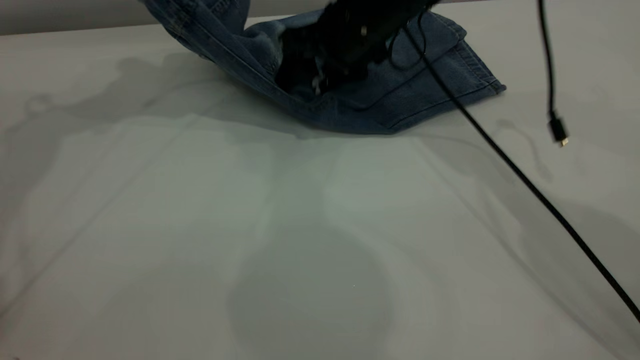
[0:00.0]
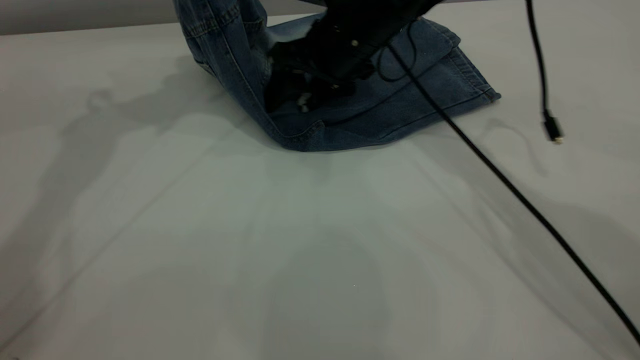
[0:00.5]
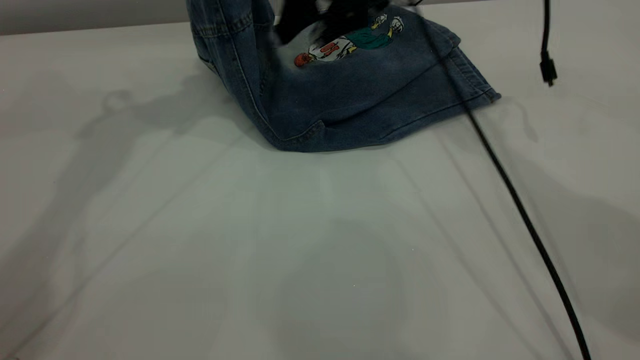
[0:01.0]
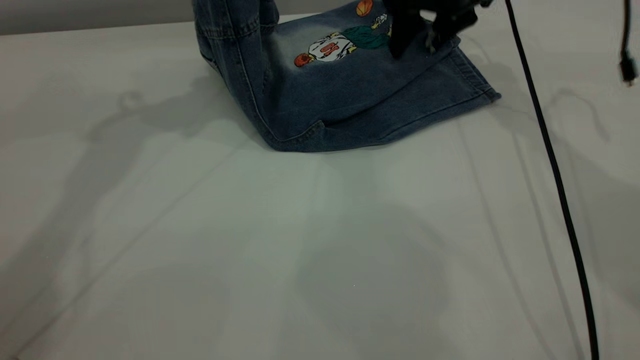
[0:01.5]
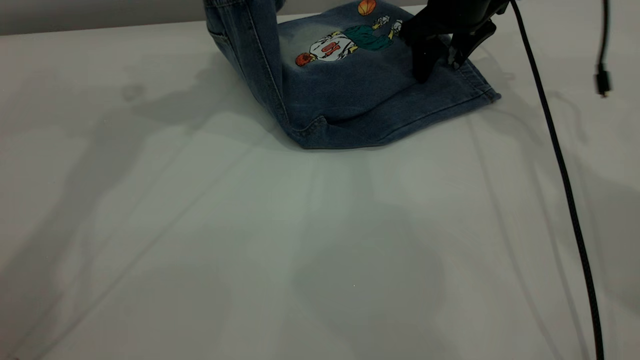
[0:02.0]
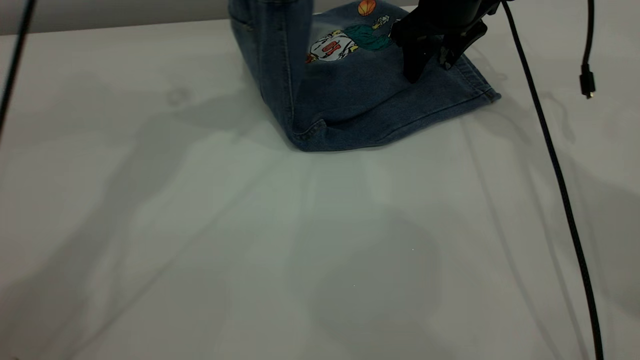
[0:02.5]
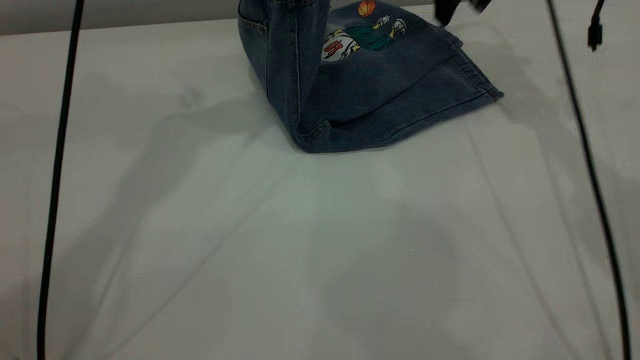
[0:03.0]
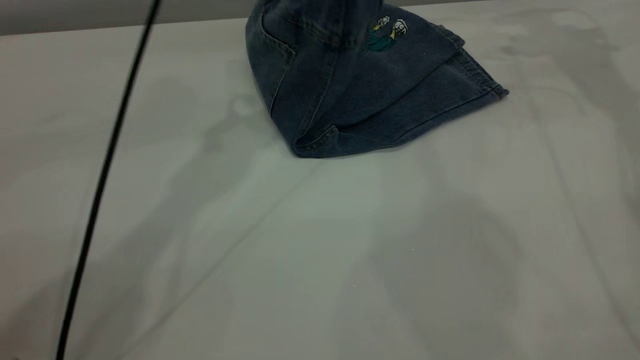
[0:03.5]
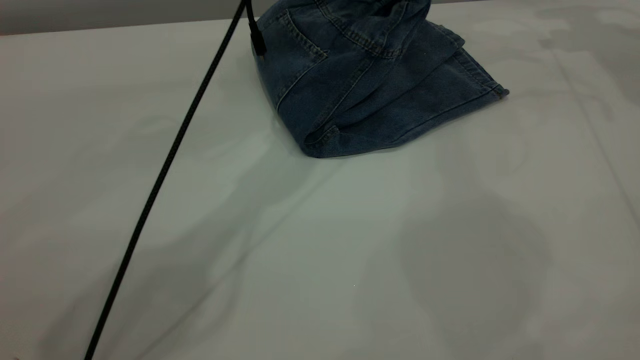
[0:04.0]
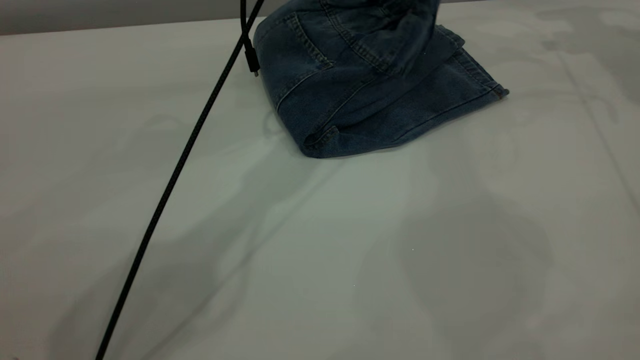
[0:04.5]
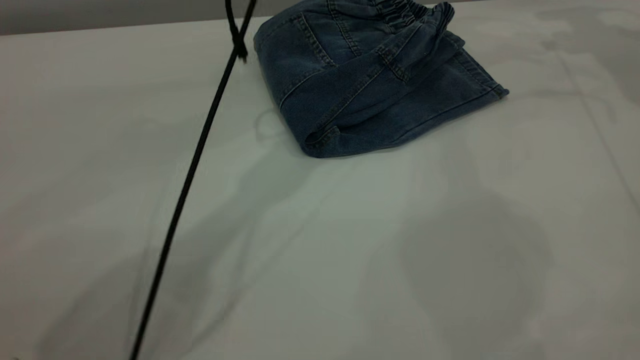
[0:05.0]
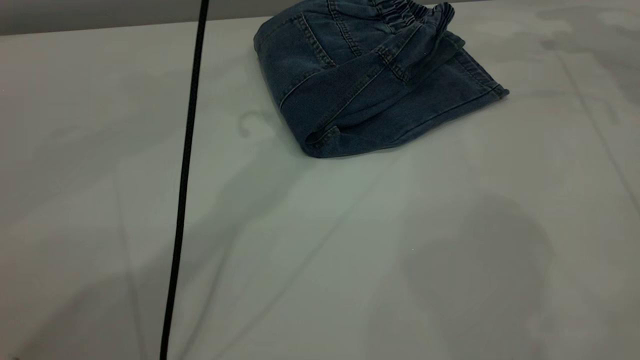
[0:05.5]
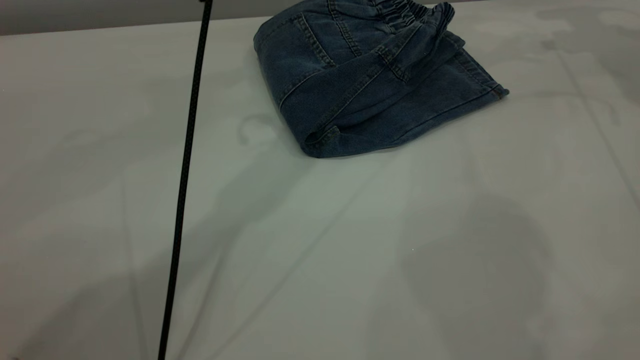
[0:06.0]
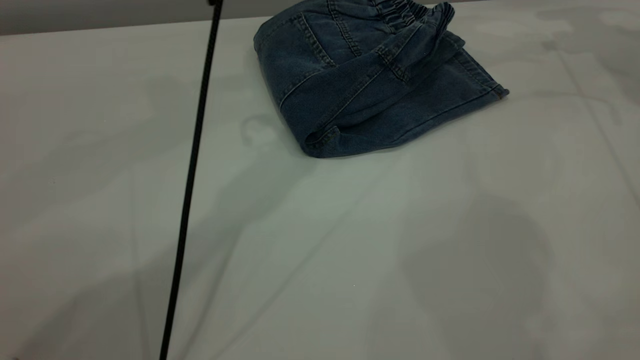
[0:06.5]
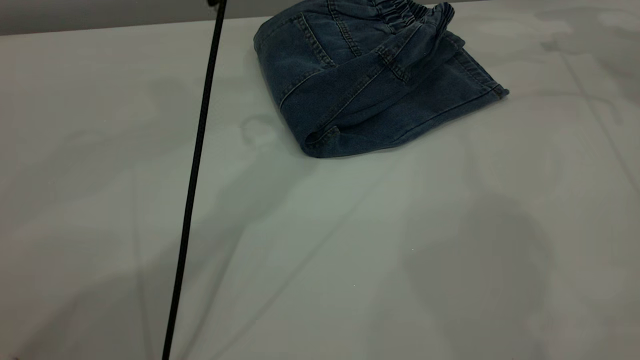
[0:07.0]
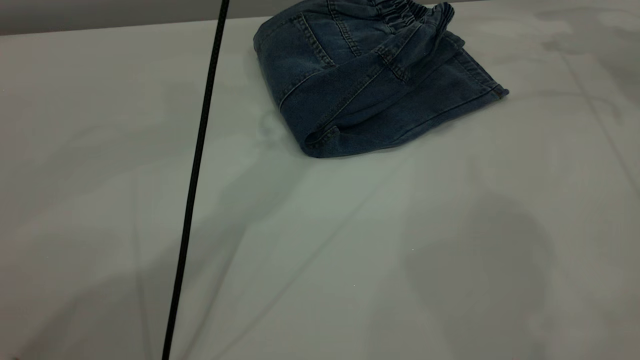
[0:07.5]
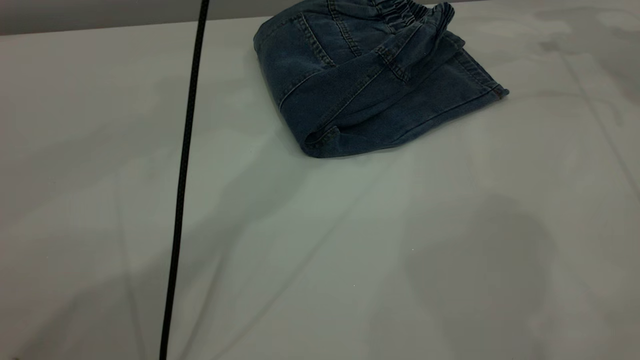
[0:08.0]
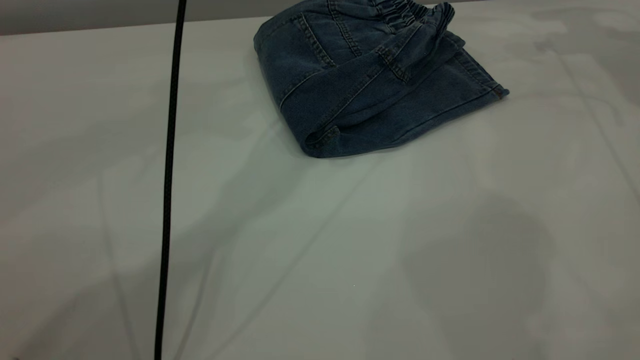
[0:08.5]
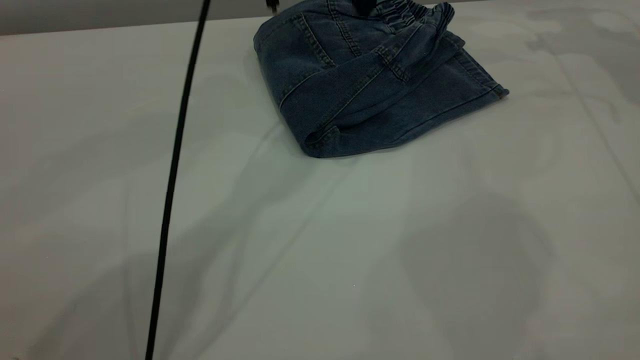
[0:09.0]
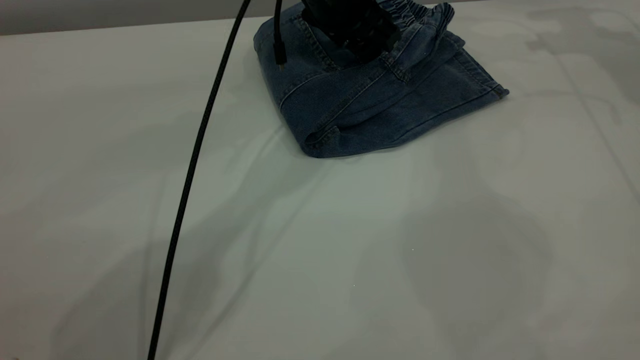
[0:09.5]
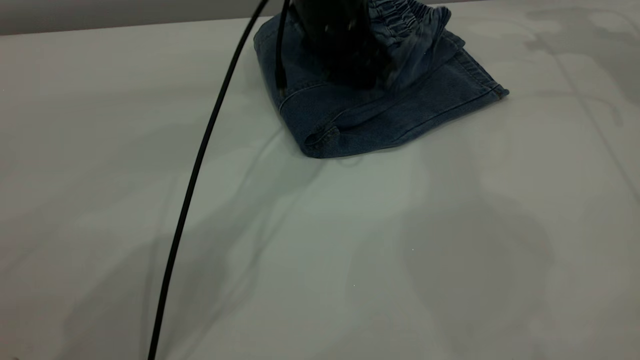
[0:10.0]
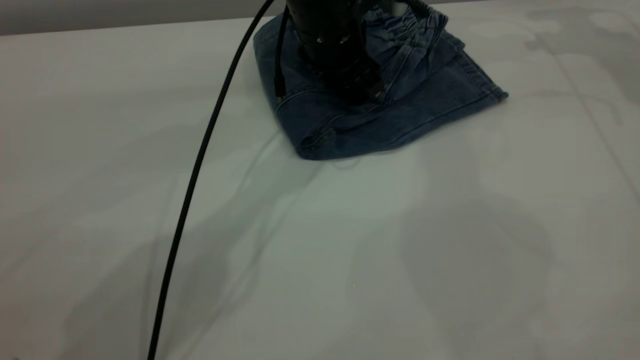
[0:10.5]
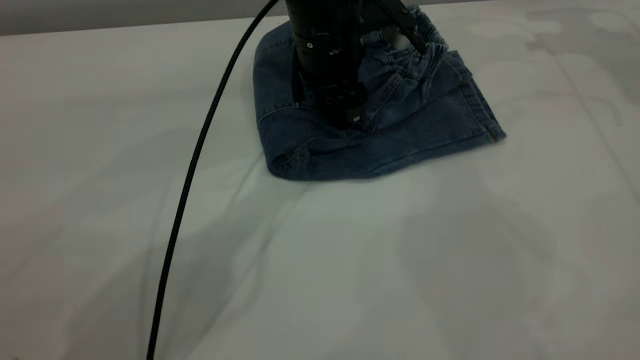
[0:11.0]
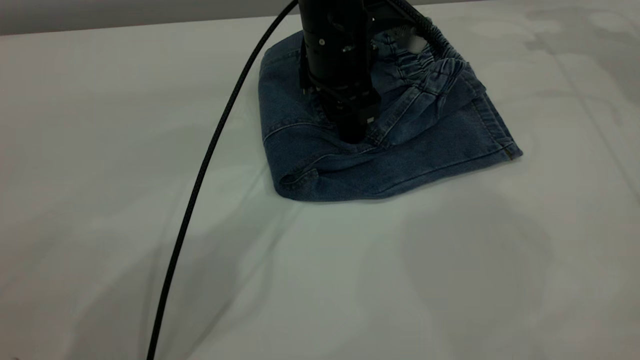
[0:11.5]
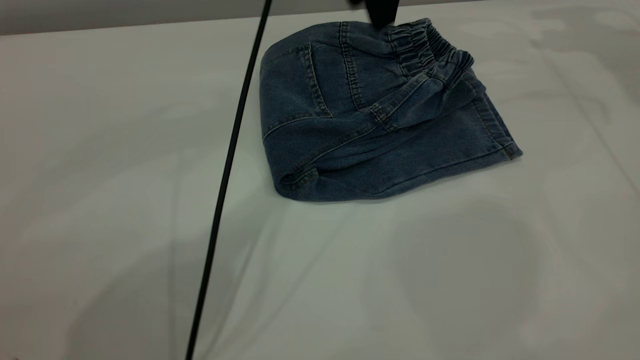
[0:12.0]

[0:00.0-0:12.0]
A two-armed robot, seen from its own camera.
Step, 0:00.0 to 0:05.5: Fold the pants from left to right.
0:00.0 to 0:02.0: The right gripper goes some 10 cm to the right and forward. Meanwhile the left gripper is displaced to the right by about 10 cm.
0:02.0 to 0:04.0: The left gripper heads to the right and downward, covering approximately 20 cm; the right gripper moves to the right and upward, approximately 20 cm.
0:04.0 to 0:06.0: The left gripper travels upward by approximately 10 cm, and opens.
0:06.0 to 0:08.0: The grippers make only small movements.
0:08.0 to 0:10.0: The left gripper travels downward by roughly 15 cm.
0:10.0 to 0:12.0: The left gripper travels upward by roughly 15 cm.

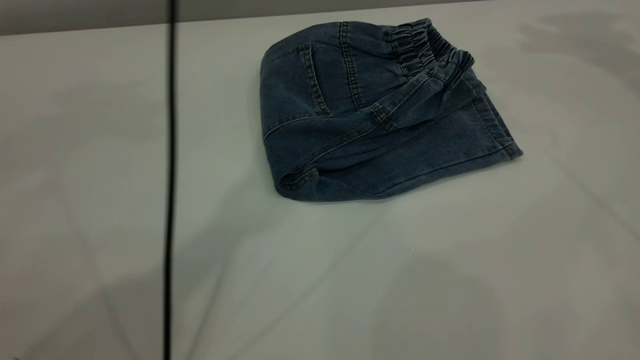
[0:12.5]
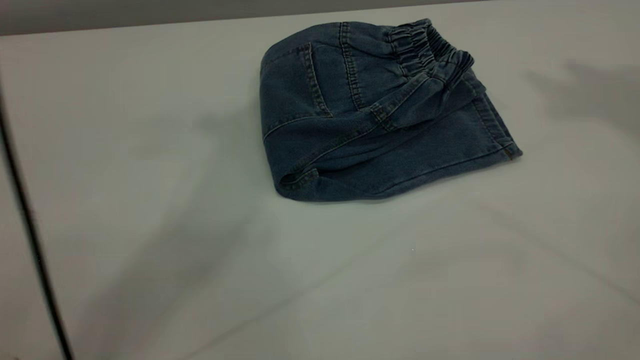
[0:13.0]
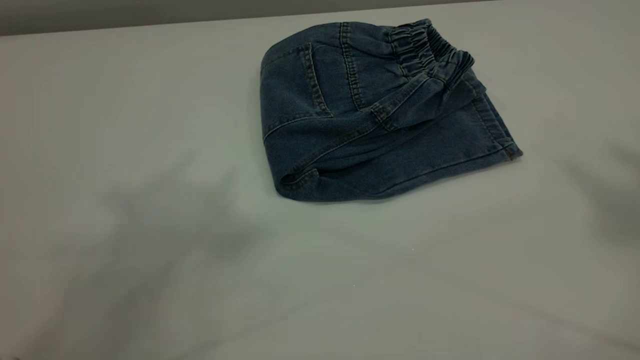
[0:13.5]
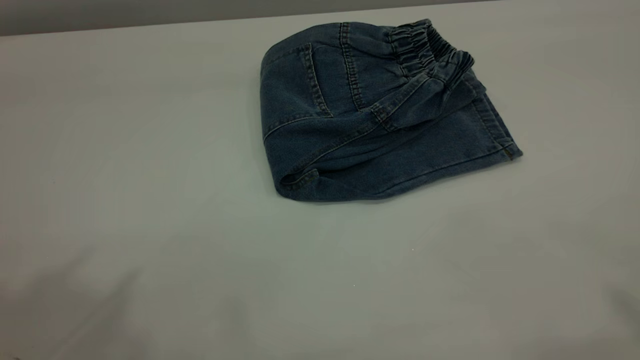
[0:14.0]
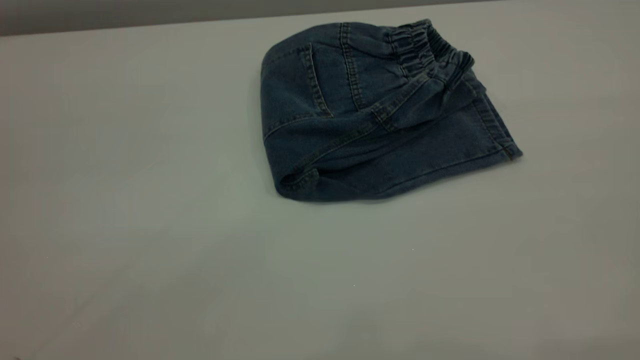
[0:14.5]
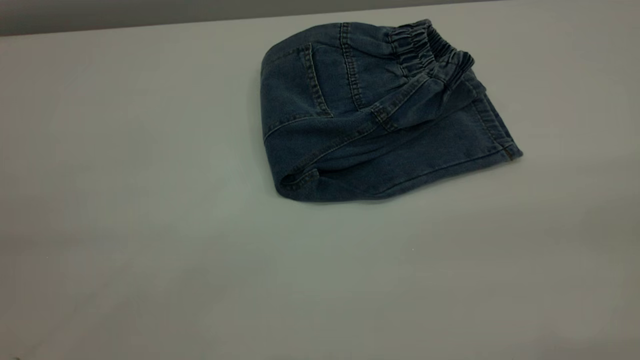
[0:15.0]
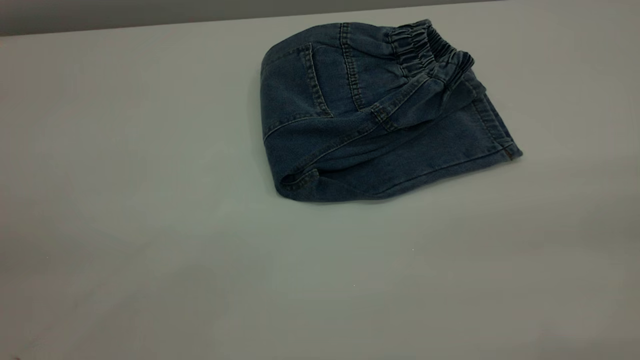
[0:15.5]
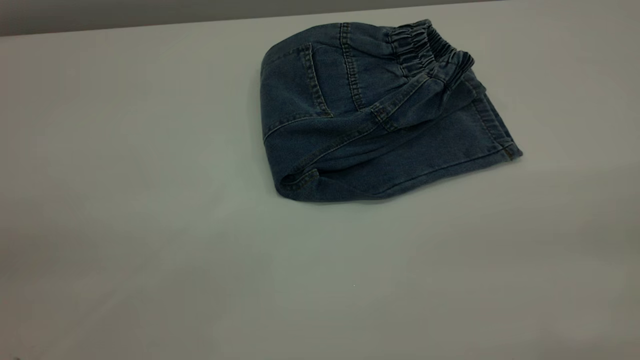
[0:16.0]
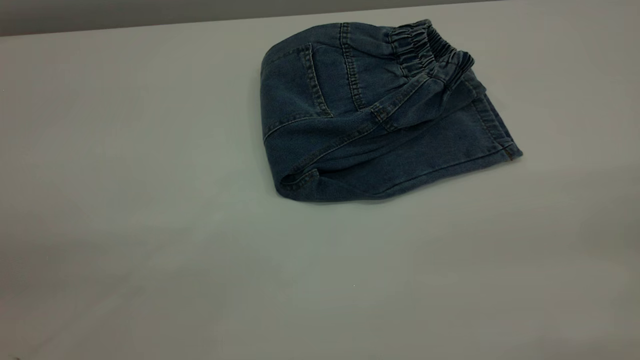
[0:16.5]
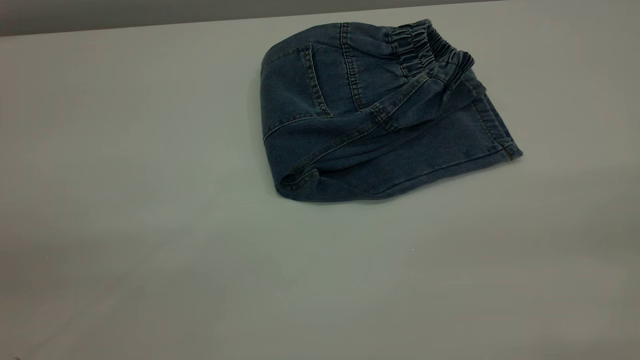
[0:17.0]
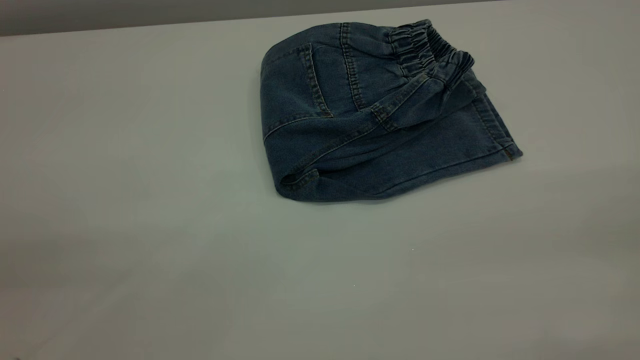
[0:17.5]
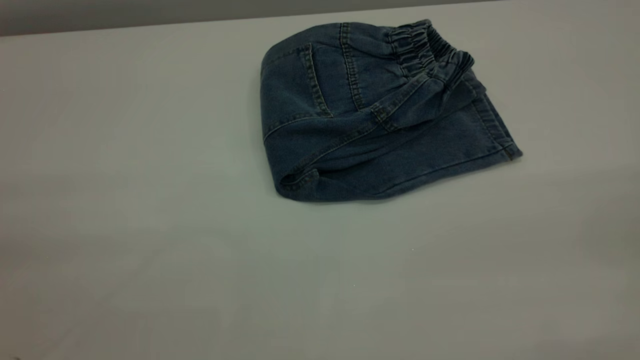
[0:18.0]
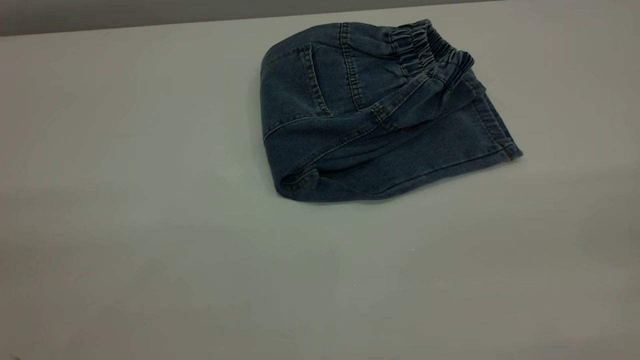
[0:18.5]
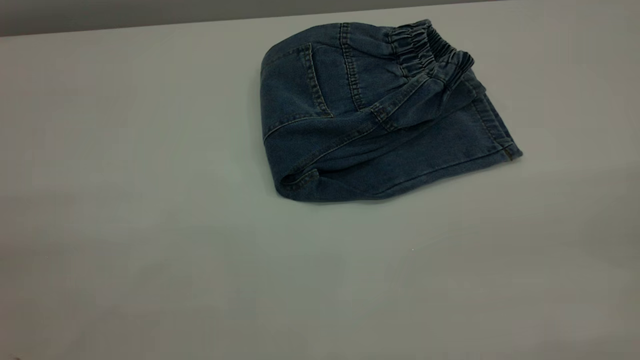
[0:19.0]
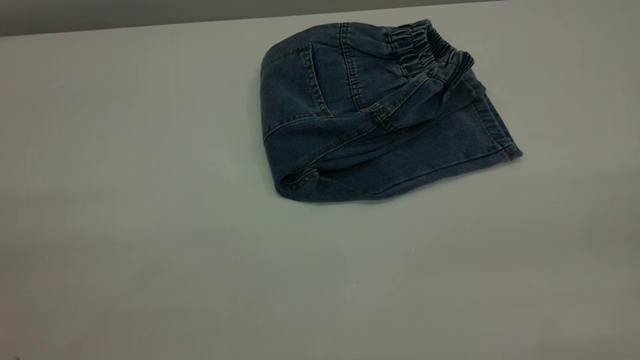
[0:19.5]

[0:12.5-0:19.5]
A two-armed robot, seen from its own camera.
0:12.5 to 0:14.5: The left gripper is displaced backward and to the left by about 40 cm.

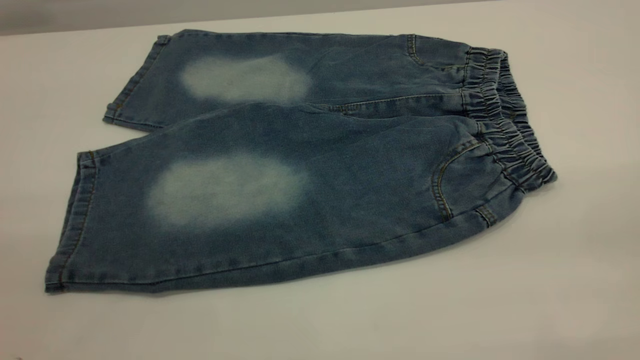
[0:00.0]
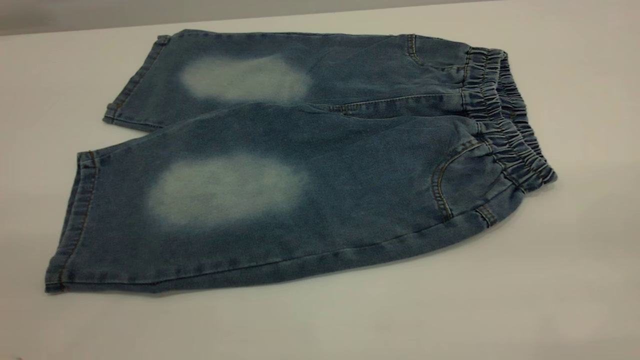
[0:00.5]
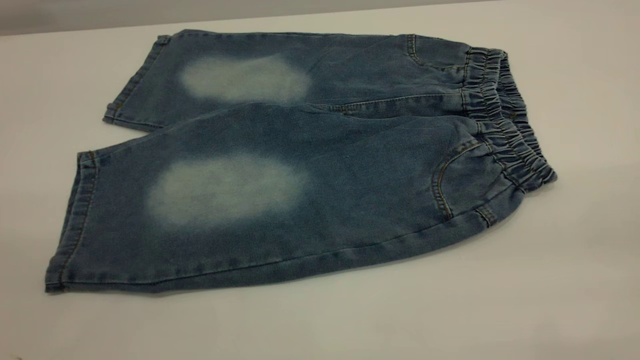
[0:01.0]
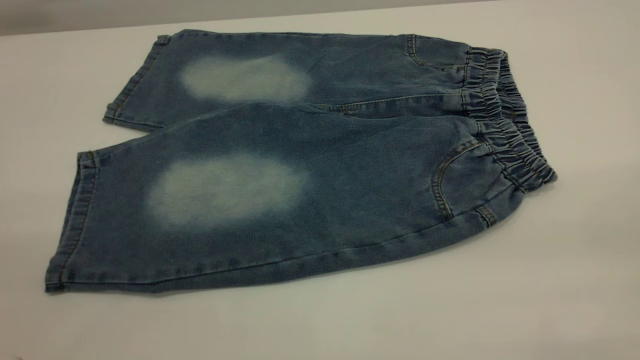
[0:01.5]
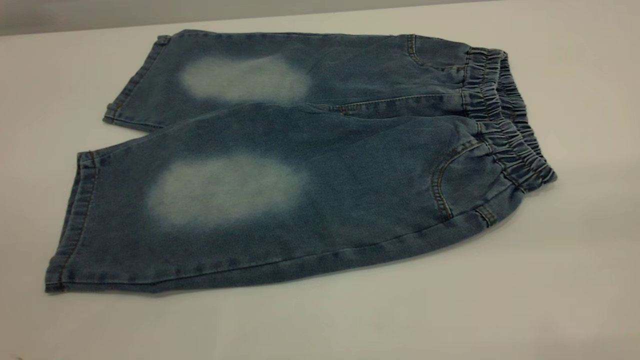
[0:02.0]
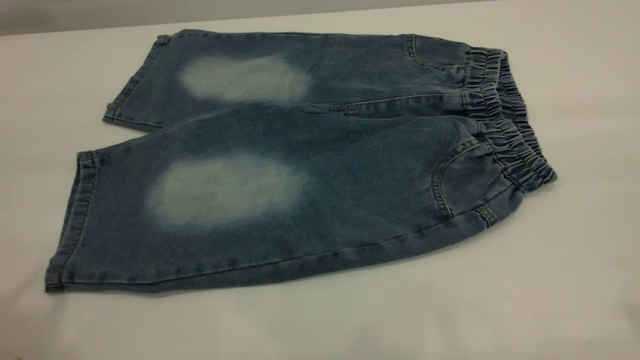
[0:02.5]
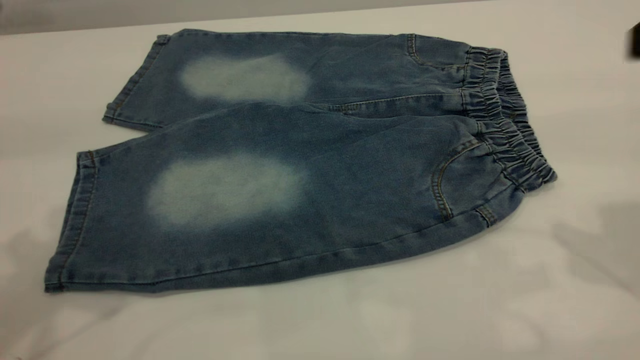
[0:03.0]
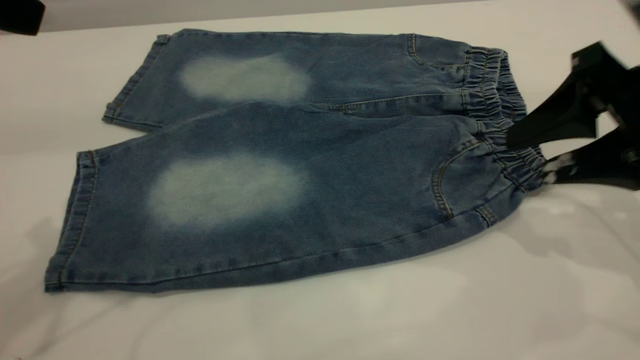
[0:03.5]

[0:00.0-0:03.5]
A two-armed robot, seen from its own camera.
0:02.0 to 0:03.5: The left gripper moves forward, about 20 cm. The right gripper moves forward and downward, roughly 30 cm.
